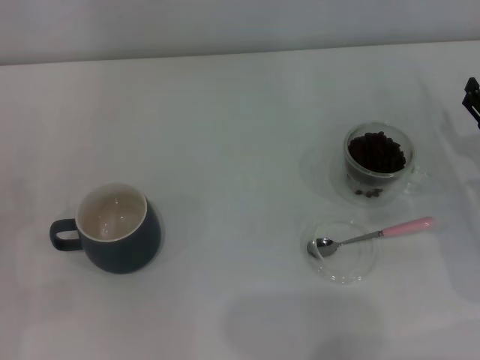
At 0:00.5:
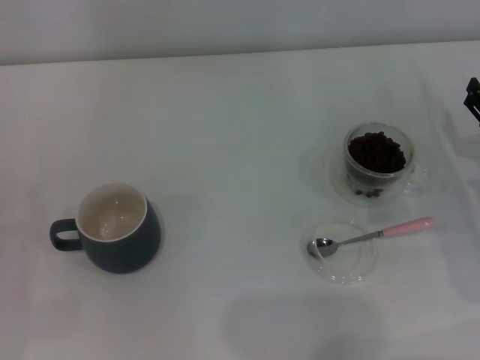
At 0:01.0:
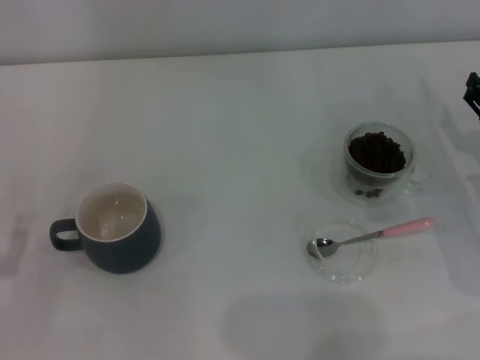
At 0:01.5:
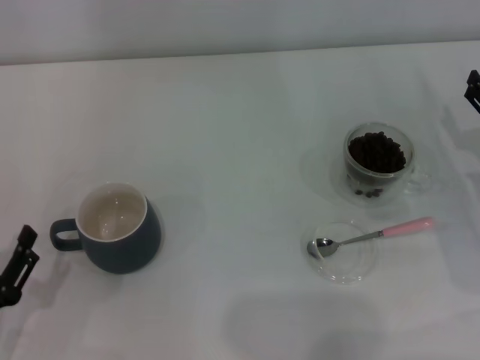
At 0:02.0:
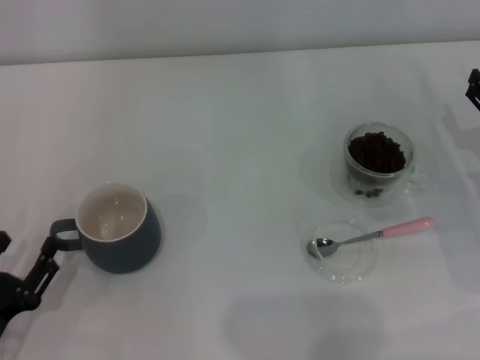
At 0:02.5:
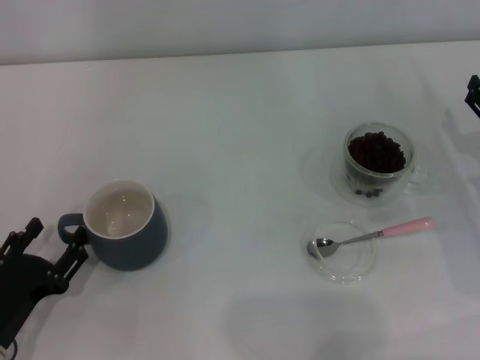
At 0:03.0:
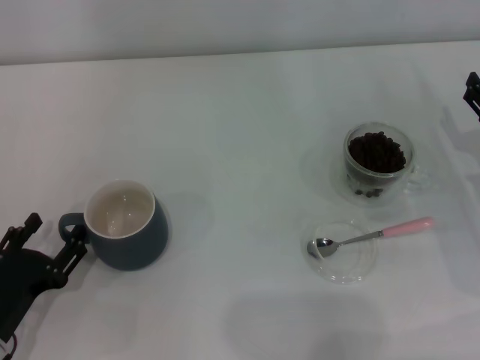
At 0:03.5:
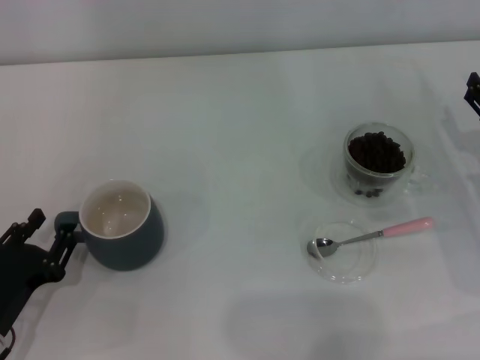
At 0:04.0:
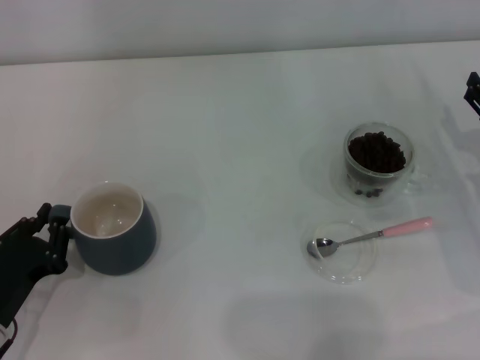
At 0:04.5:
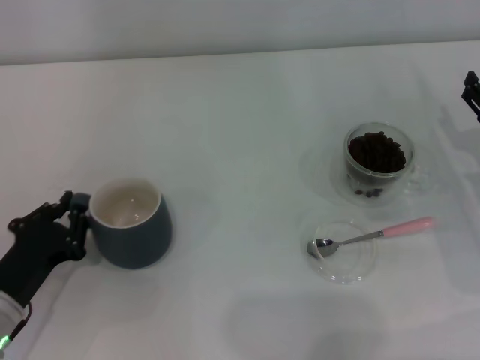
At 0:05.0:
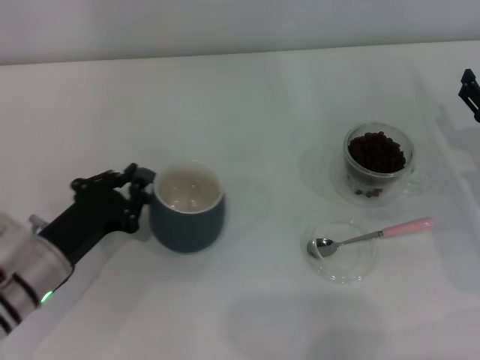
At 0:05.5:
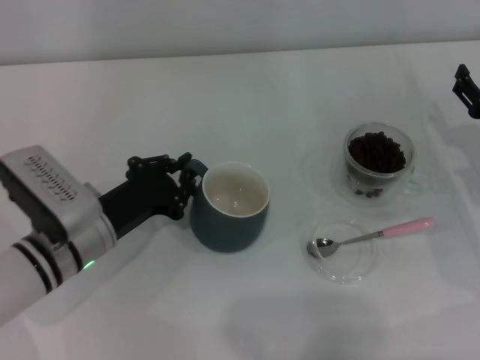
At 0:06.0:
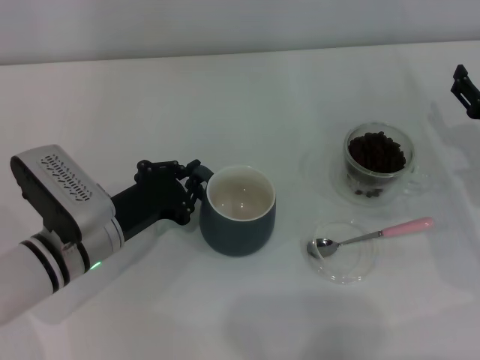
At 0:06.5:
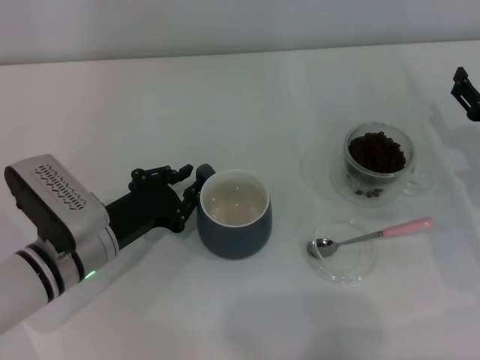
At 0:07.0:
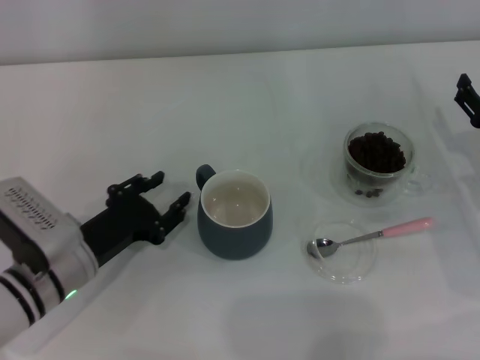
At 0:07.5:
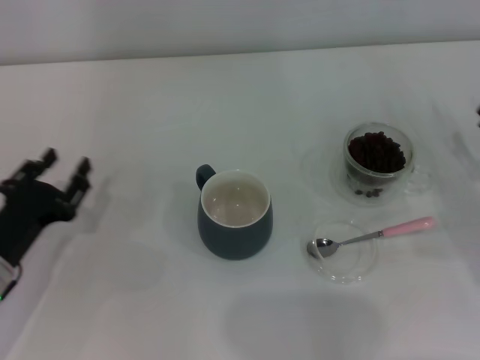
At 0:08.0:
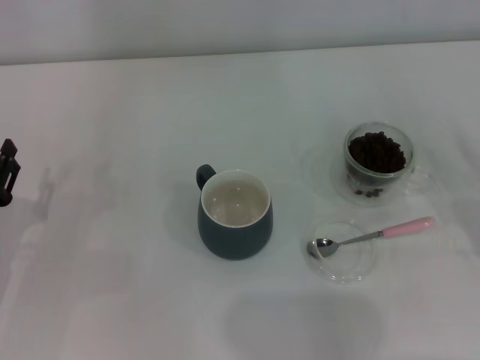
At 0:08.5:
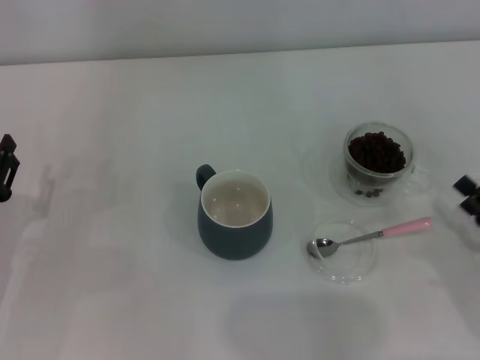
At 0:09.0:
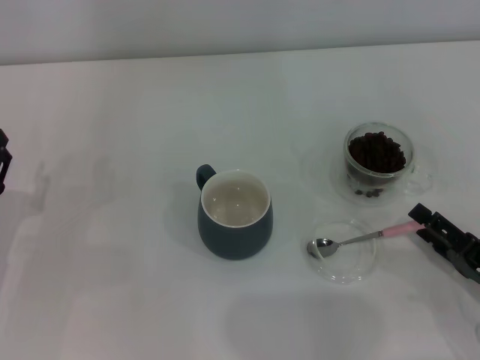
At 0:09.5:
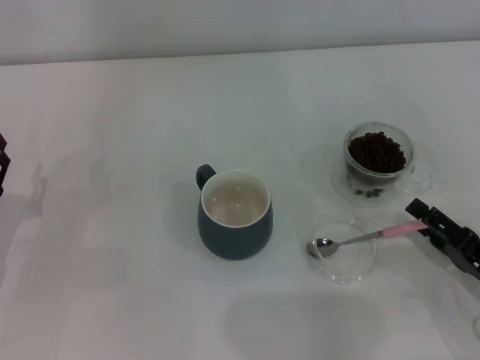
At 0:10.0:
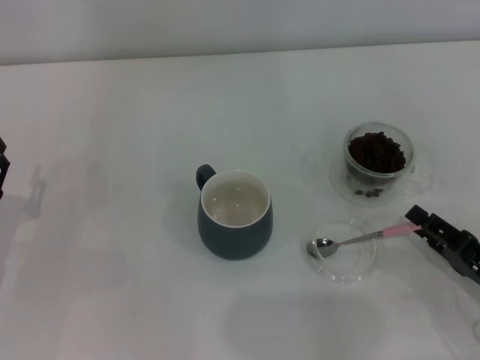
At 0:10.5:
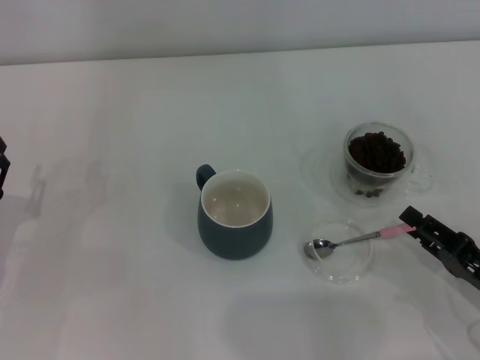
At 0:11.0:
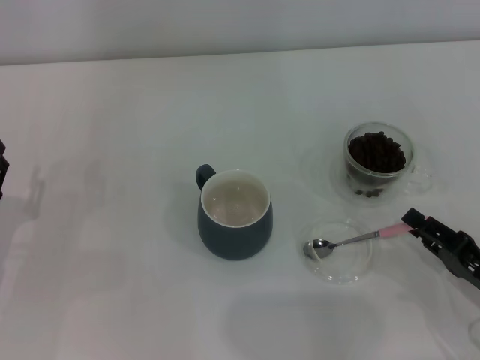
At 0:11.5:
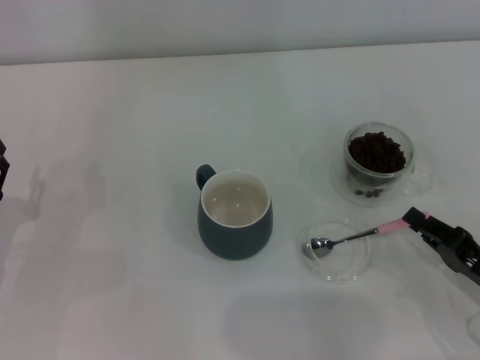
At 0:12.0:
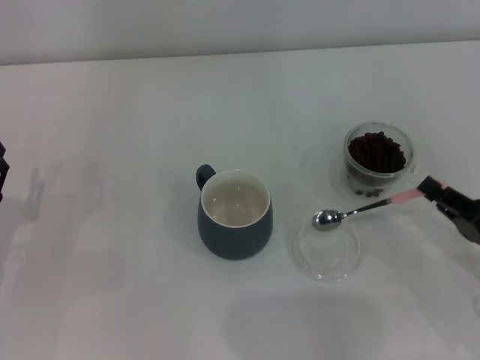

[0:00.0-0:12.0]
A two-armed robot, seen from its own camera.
Task of the whole recording: Use a pink spoon to take out the coffee beans from the glass and pour them into the gray cup.
Step, 0:00.0 to 0:07.0: Move the cup to the center of view with the left gripper.
0:00.0 to 0:02.0: The left gripper goes some 10 cm backward and to the right.
0:02.0 to 0:04.0: The left gripper closes.
0:04.0 to 0:06.0: The left gripper shifts about 15 cm to the right and forward.
0:06.0 to 0:08.0: The right gripper travels backward and to the right by some 15 cm. Meanwhile the left gripper is displaced to the left by roughly 15 cm, and opens.
0:08.0 to 0:10.0: The right gripper moves to the left, about 10 cm, and closes.
0:10.0 to 0:12.0: The right gripper closes its fingers.

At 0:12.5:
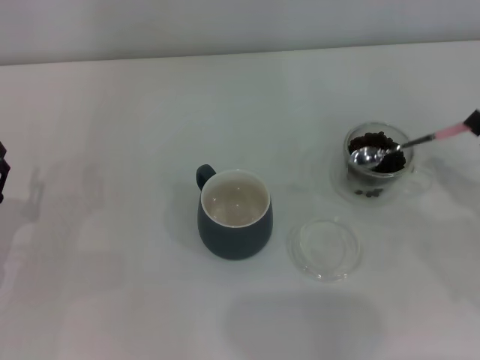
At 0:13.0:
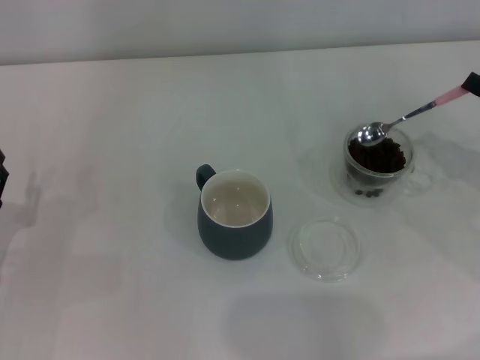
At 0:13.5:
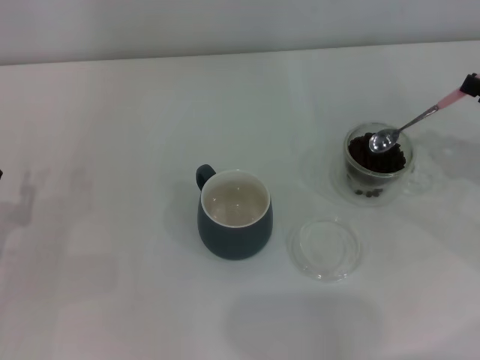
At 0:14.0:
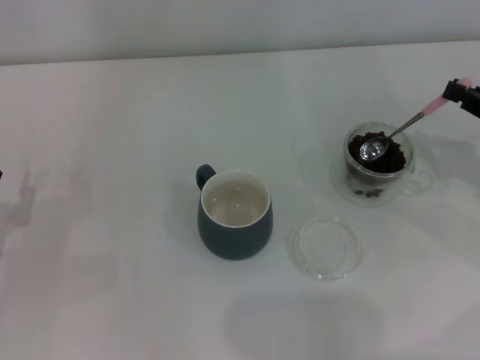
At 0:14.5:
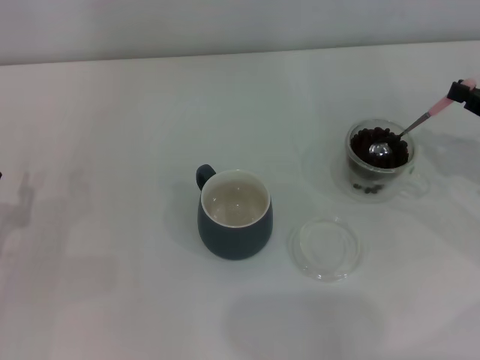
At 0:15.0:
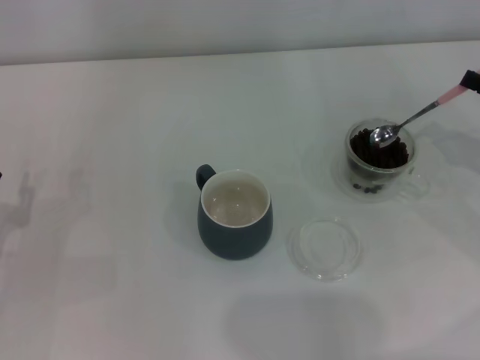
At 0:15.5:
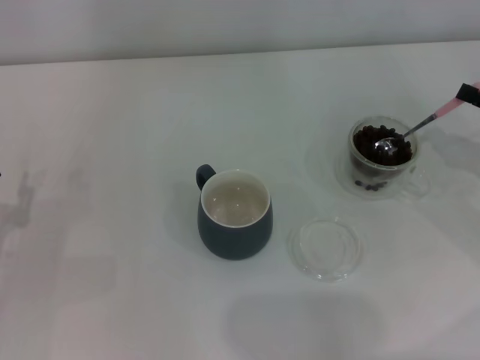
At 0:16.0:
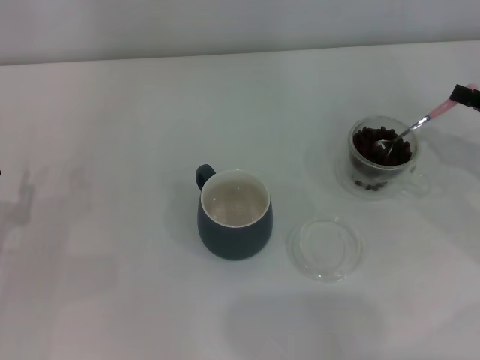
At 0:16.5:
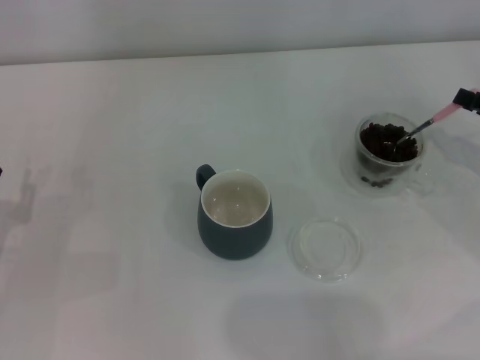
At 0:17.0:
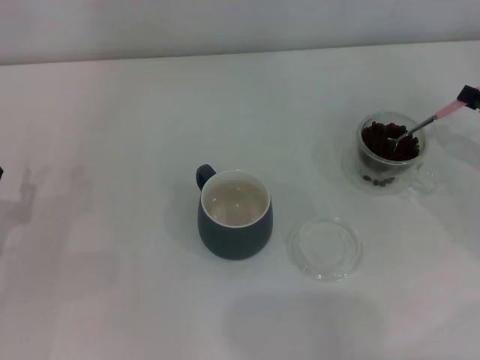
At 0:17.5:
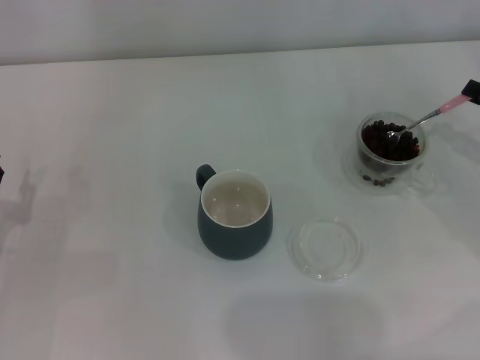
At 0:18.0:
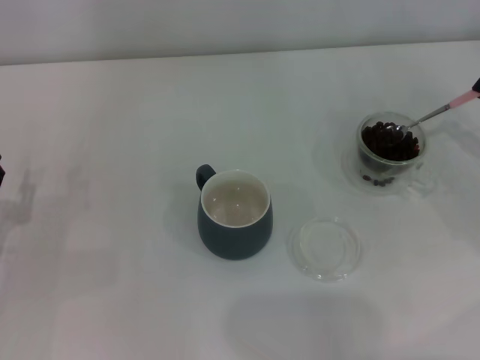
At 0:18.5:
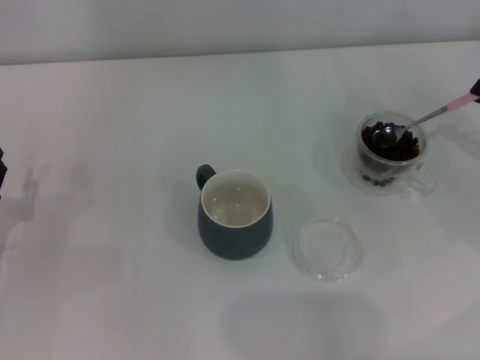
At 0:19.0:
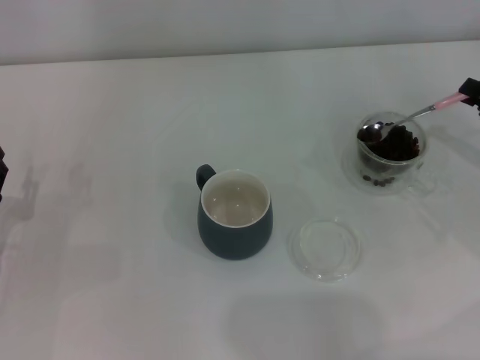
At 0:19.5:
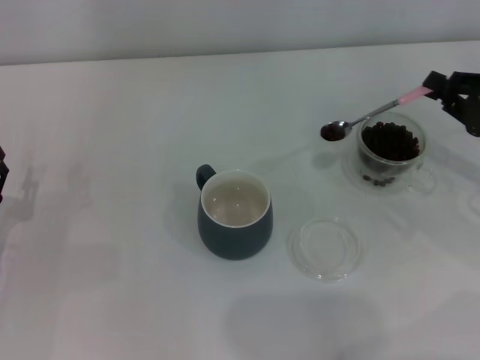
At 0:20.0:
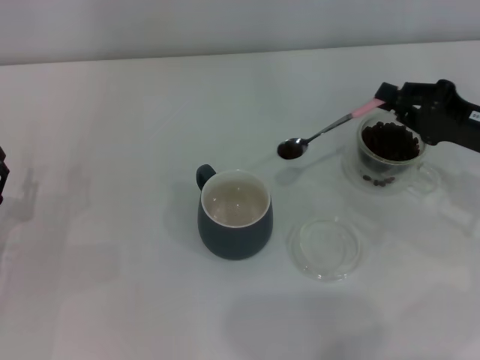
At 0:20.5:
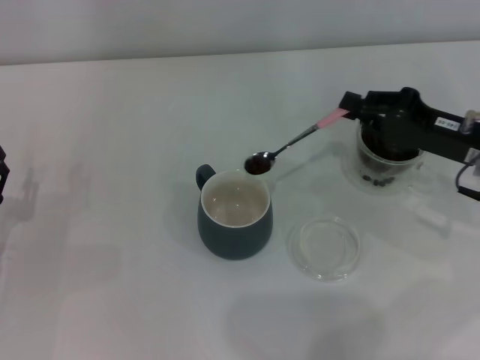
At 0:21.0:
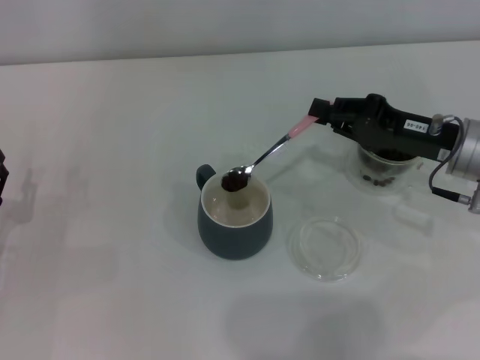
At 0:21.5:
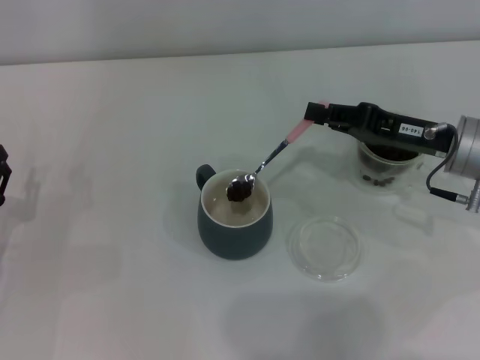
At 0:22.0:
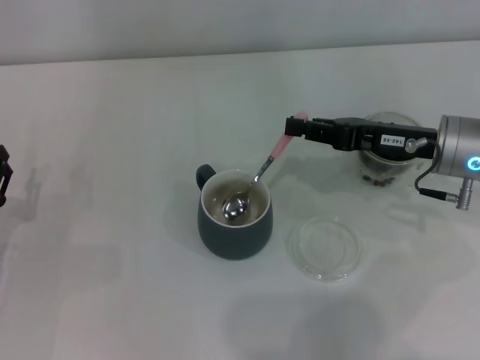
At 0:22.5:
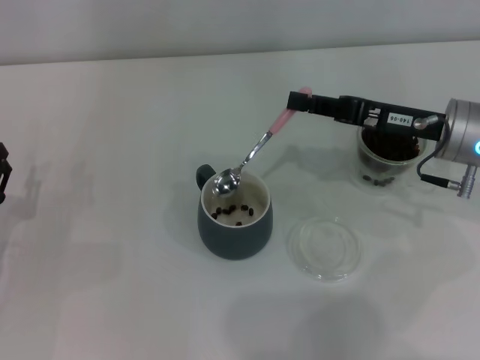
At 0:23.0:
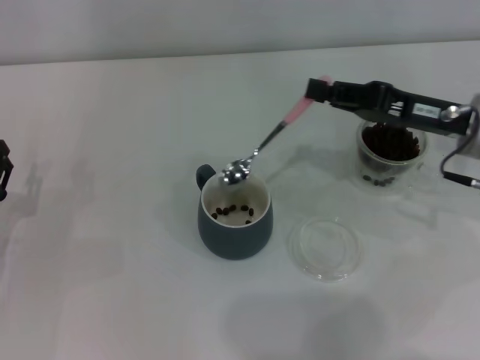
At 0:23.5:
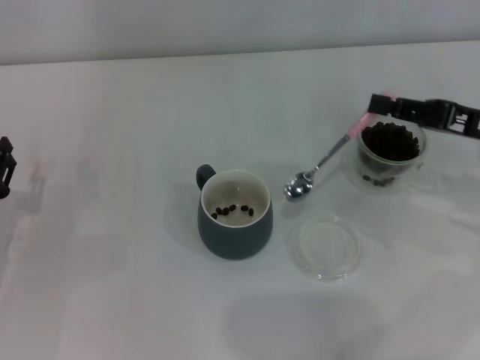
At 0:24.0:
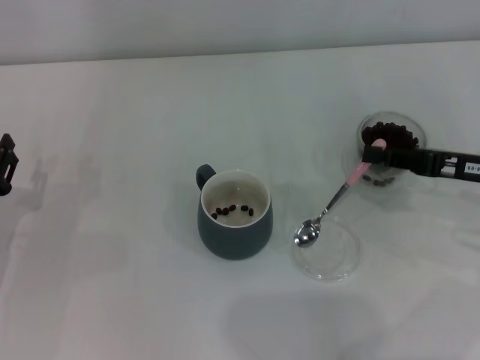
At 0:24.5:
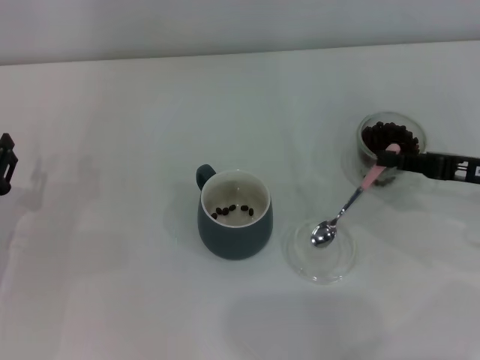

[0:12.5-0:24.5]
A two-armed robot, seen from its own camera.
Task of the whole recording: Use a pink spoon to take out the coffee beans from the glass and pour them into the gray cup.
Step, 0:12.5 to 0:22.5: Scoop a spoonful of beans into the cup with the right gripper.
0:12.5 to 0:14.5: The right gripper travels forward by about 5 cm.
0:16.5 to 0:18.5: The grippers stay close to where they were, moving slightly.
0:18.5 to 0:20.5: The right gripper travels to the left by some 10 cm.
0:22.5 to 0:24.5: The right gripper travels to the right by roughly 10 cm.

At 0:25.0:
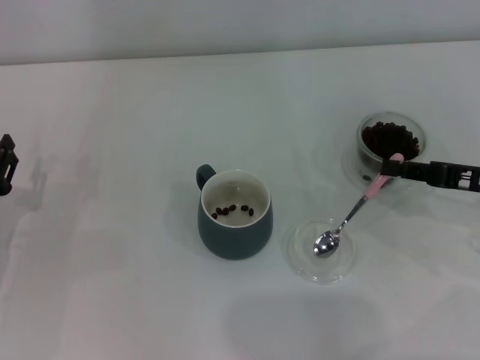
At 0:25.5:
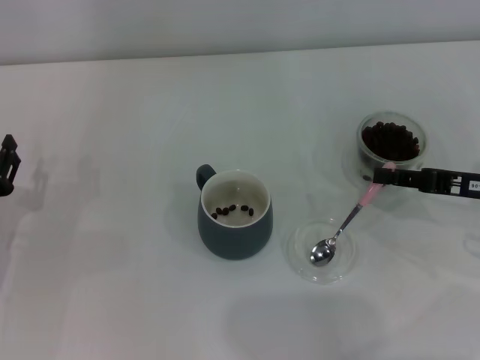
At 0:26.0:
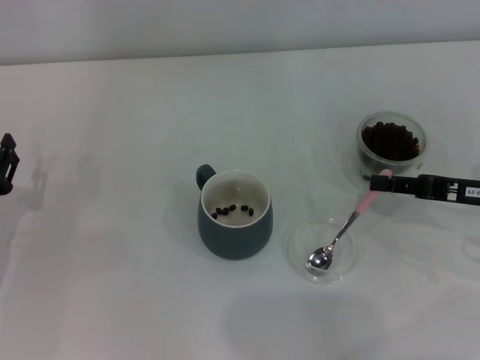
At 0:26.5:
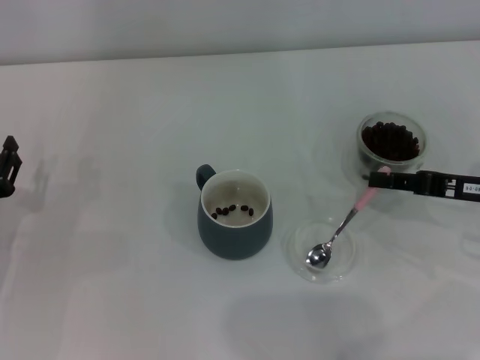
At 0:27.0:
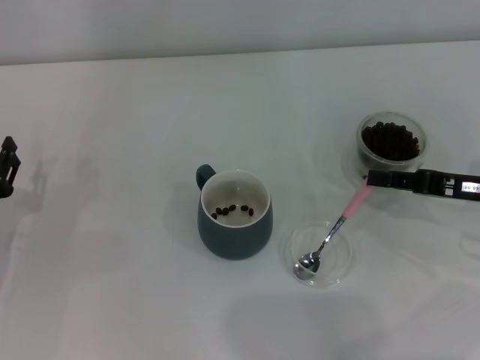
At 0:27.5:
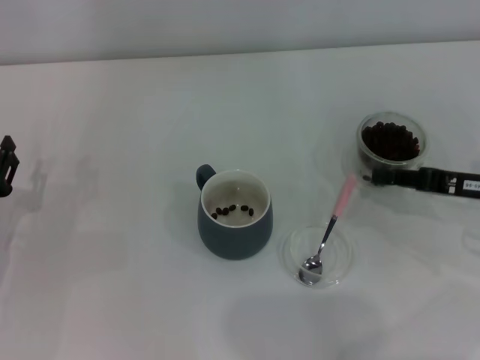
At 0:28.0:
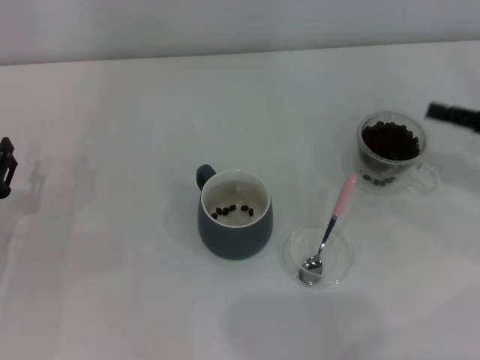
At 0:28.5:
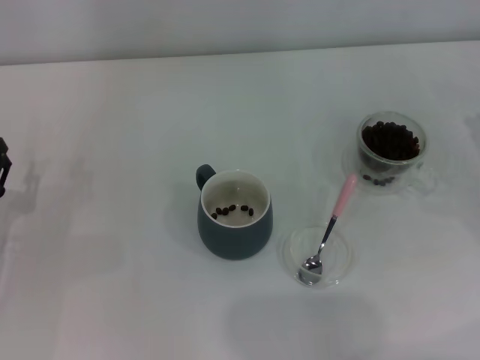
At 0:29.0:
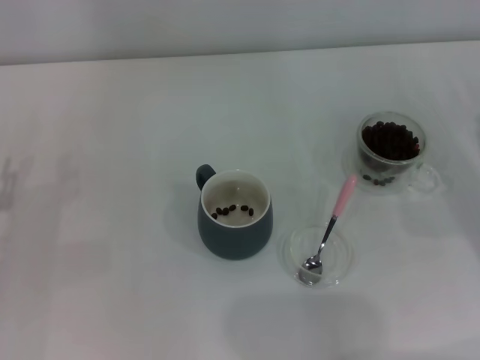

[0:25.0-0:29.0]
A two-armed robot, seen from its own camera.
Task of the whole recording: Use a pink spoon to take out the coffee beans from the glass and pour them into the gray cup.
Step, 0:25.0 to 0:27.5: Place the spoon back in its original place with the right gripper.
0:25.0 to 0:27.0: There are only small adjustments of the grippers.
0:27.0 to 0:29.0: The right gripper moves to the right, about 5 cm.
